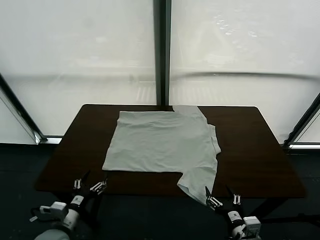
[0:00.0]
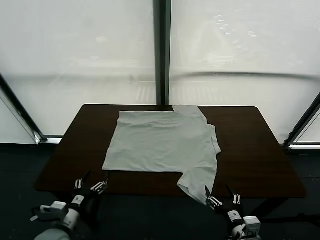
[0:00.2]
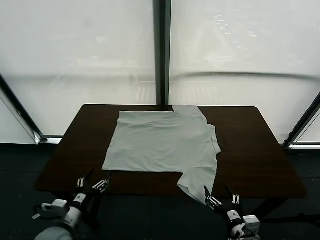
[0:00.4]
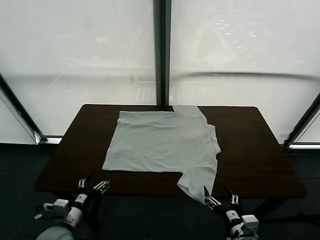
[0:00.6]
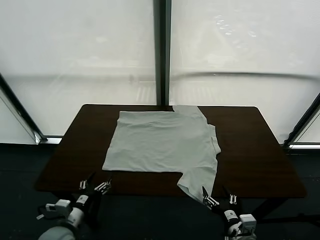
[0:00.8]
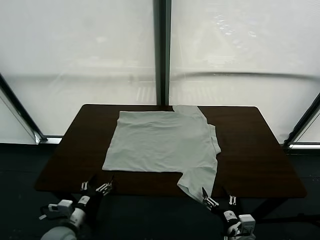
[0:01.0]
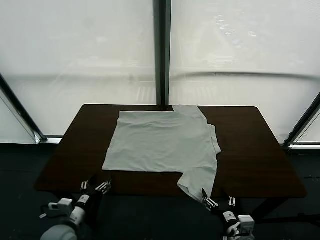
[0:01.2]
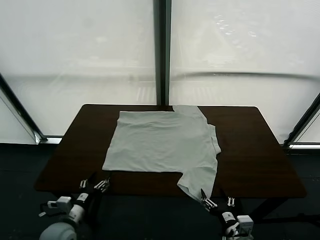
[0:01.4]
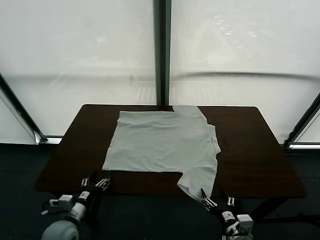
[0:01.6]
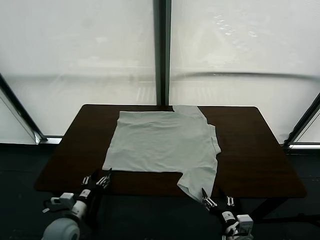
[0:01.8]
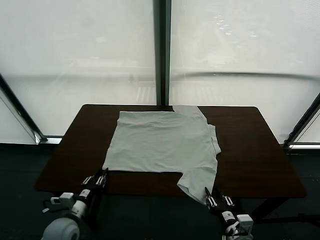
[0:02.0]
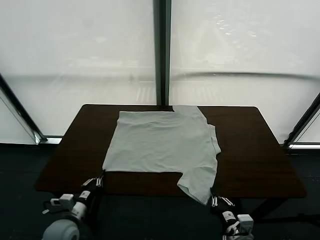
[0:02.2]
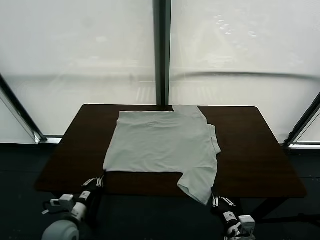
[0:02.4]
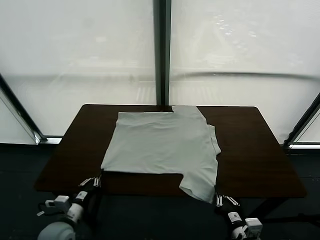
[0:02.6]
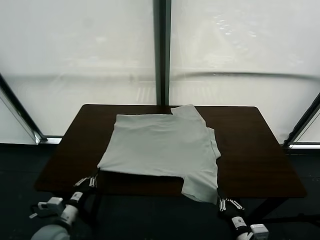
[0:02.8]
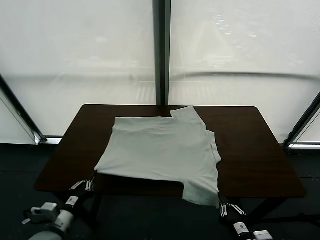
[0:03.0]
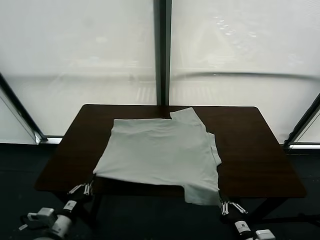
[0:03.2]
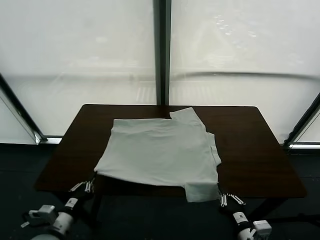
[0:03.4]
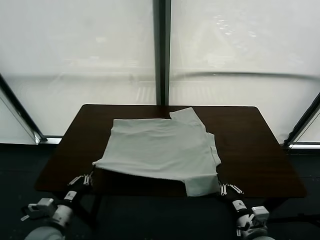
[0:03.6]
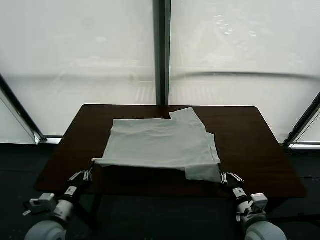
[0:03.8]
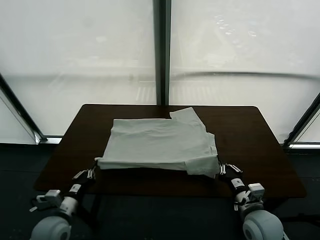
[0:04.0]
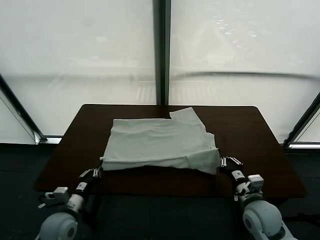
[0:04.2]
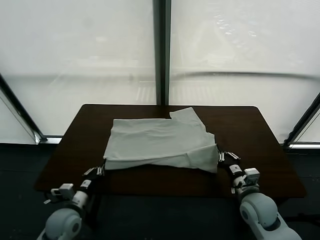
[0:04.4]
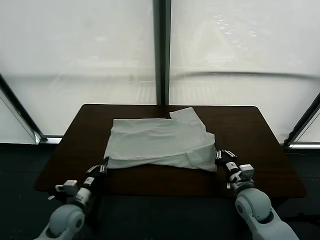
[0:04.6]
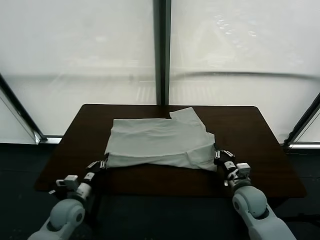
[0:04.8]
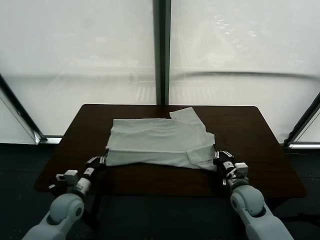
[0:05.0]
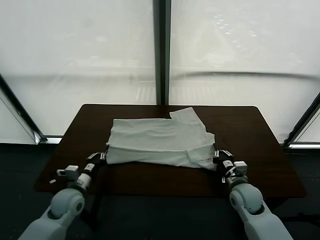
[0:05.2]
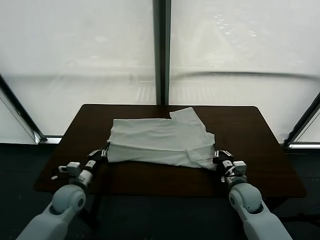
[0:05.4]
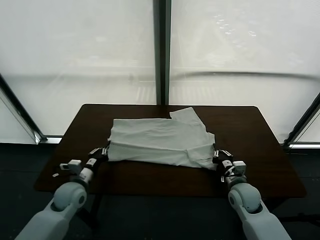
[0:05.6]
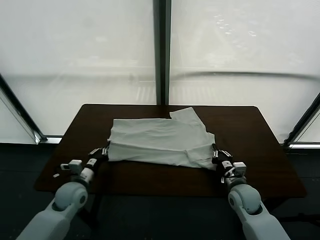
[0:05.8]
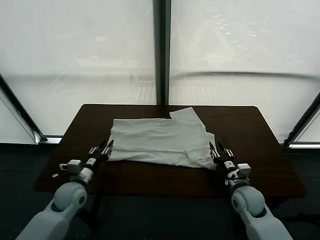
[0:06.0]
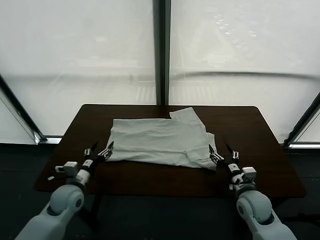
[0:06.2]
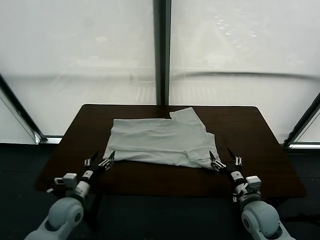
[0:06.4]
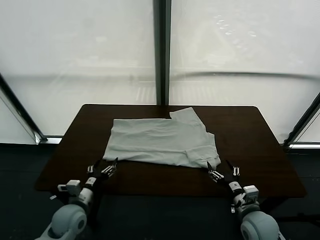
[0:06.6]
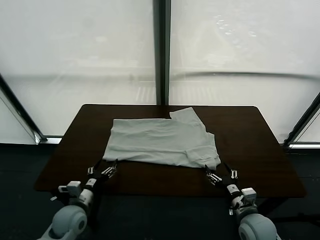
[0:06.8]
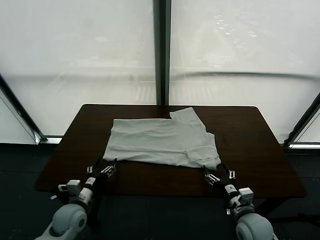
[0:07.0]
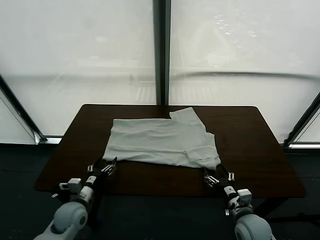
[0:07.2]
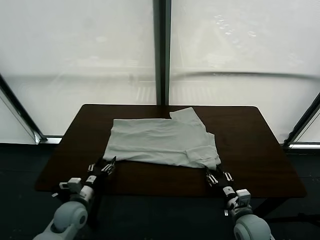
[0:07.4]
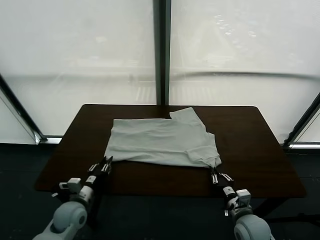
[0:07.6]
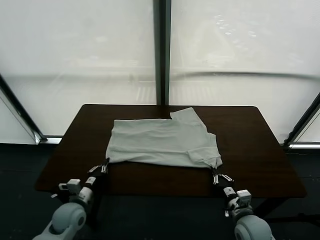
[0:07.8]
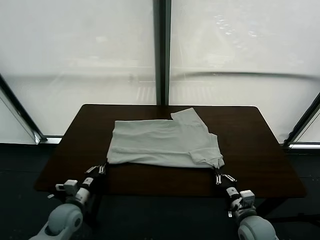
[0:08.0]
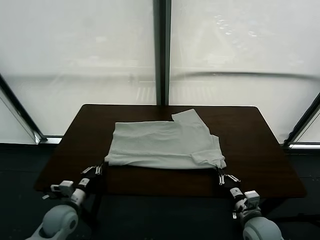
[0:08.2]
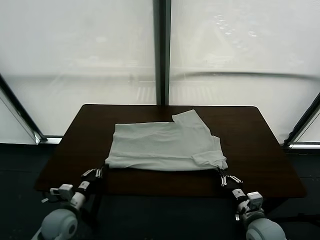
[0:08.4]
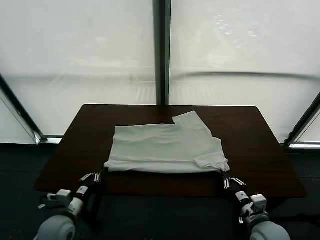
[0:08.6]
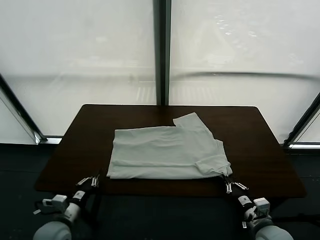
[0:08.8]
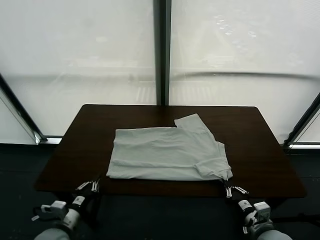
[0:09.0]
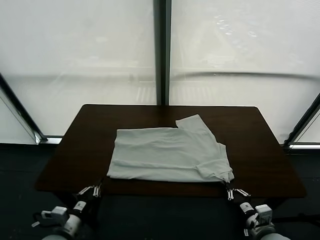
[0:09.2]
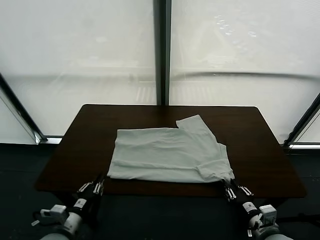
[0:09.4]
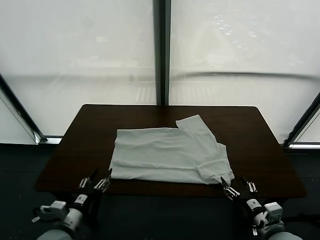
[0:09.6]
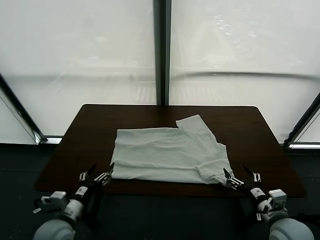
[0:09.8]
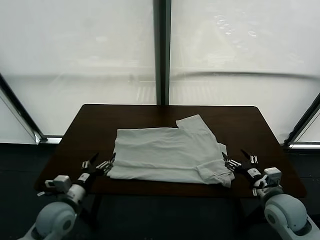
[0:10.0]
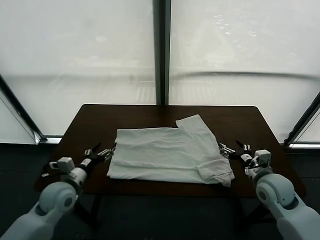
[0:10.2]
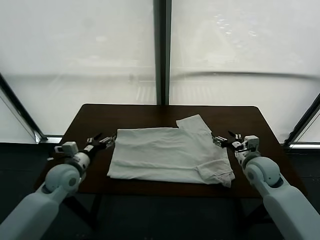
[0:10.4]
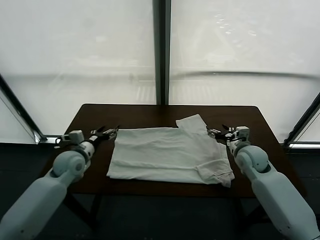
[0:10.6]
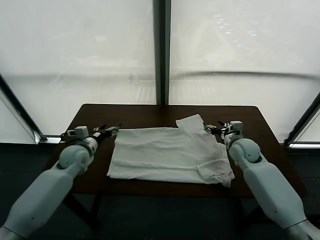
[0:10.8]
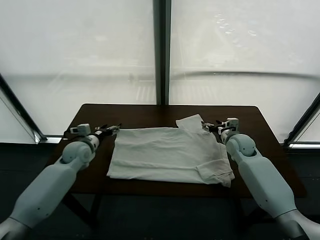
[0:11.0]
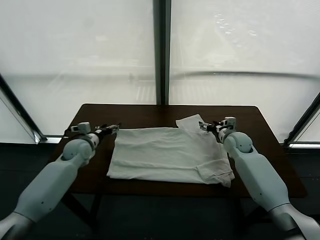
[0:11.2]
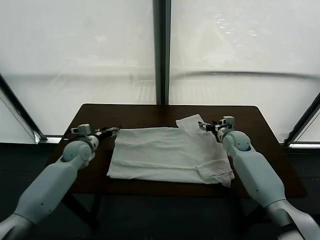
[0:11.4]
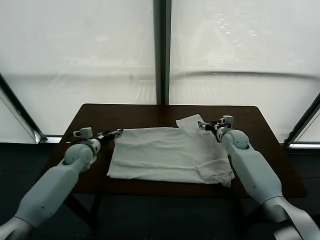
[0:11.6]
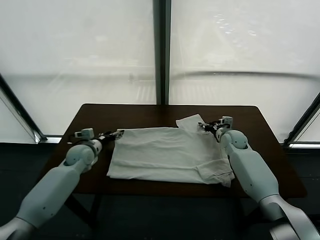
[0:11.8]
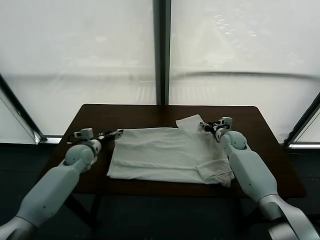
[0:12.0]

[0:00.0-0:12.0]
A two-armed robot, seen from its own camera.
Task of the whole recording: fold and organize the clothes.
Step, 0:00.0 to 0:02.6: use both grippers simultaneously to clamp the lower edge of the clothing fabric.
Step, 0:02.8 to 0:06.0: use both grippers to drag the lower edge of the fabric forward and fold it over the upper edge.
Step, 0:06.2 to 0:09.6: Drag the clothes downward with both gripper.
0:01.6 to 0:03.0: The left gripper shifts approximately 10 cm backward and upward, and closes its fingers. Meanwhile the right gripper changes place by approximately 5 cm.
0:03.0 to 0:04.4: The right gripper shifts some 20 cm forward; the left gripper shifts some 10 cm forward.
0:04.4 to 0:06.0: The right gripper is displaced backward by approximately 5 cm, and opens up, while the left gripper goes forward and returns, approximately 10 cm each way, and opens up.
0:06.0 to 0:07.6: The right gripper closes up. The left gripper closes up.
0:07.6 to 0:09.0: The left gripper goes some 10 cm backward, while the right gripper moves backward, approximately 5 cm.
0:09.0 to 0:10.4: The two grippers go approximately 30 cm forward. The left gripper opens its fingers. The right gripper opens.
0:10.4 to 0:12.0: The left gripper changes place by some 5 cm, while the right gripper moves forward, approximately 5 cm, and closes up.

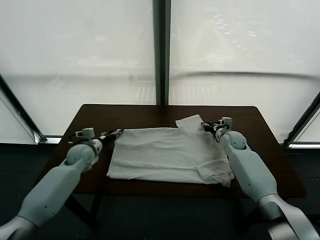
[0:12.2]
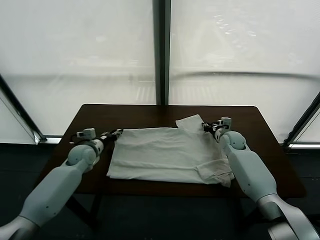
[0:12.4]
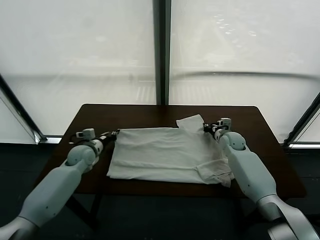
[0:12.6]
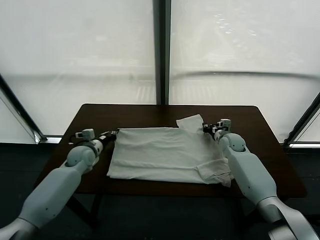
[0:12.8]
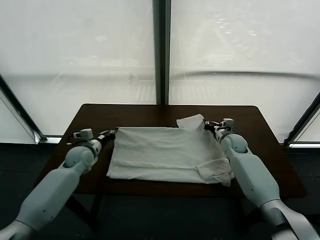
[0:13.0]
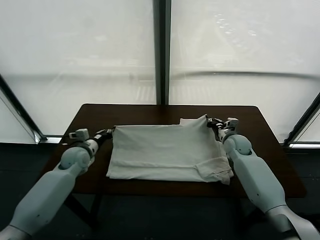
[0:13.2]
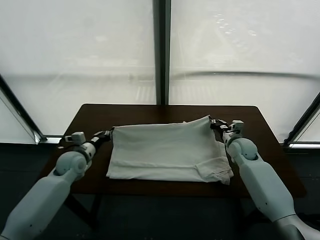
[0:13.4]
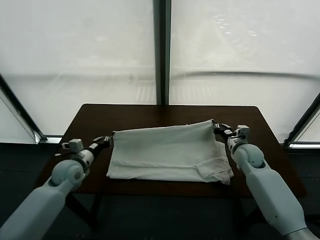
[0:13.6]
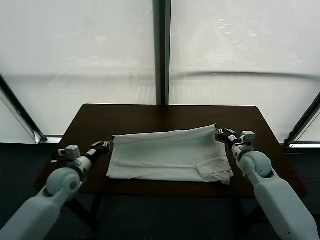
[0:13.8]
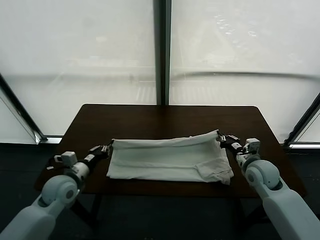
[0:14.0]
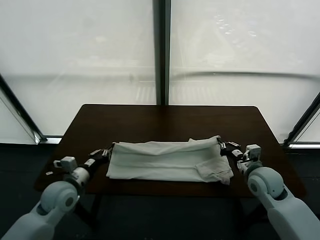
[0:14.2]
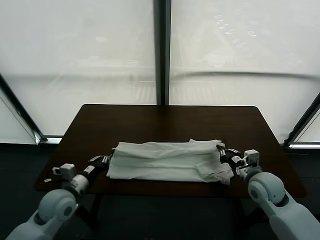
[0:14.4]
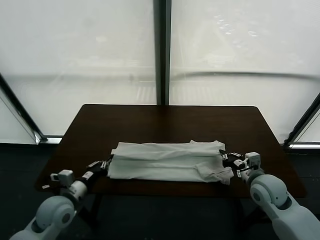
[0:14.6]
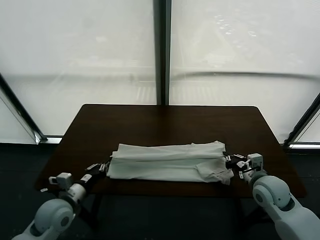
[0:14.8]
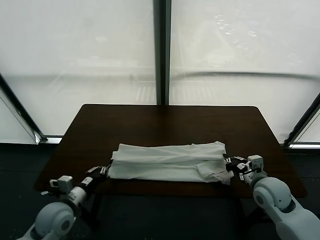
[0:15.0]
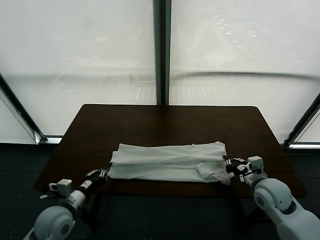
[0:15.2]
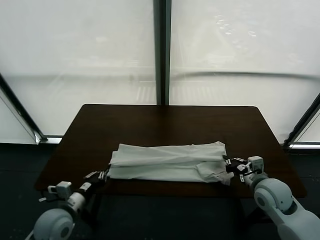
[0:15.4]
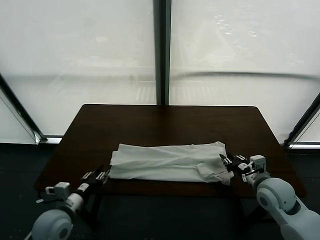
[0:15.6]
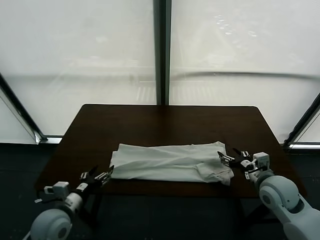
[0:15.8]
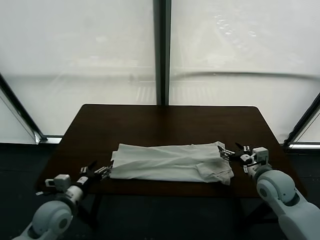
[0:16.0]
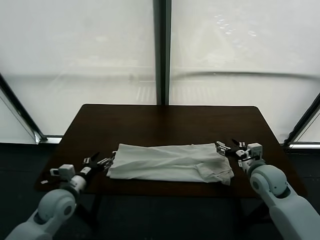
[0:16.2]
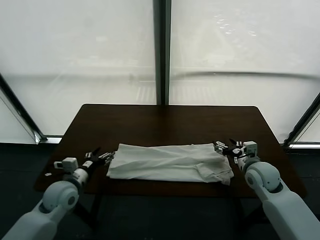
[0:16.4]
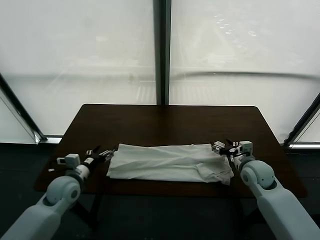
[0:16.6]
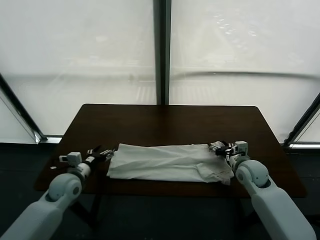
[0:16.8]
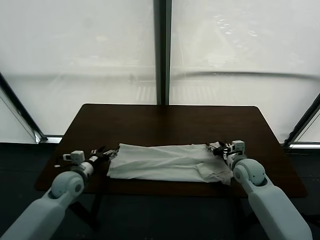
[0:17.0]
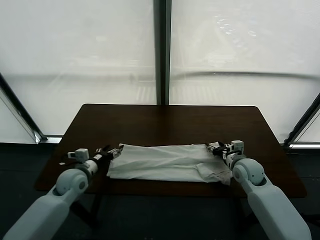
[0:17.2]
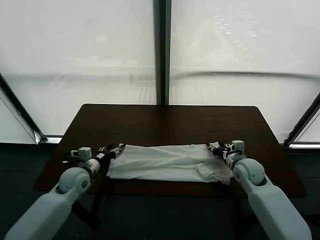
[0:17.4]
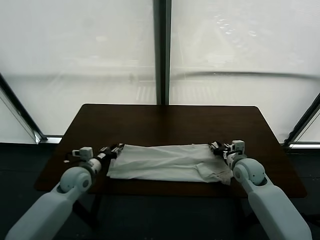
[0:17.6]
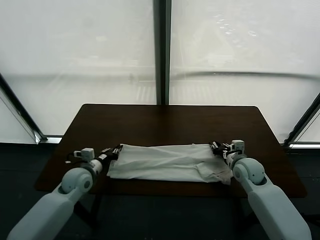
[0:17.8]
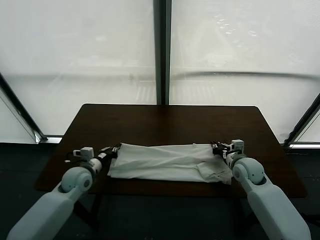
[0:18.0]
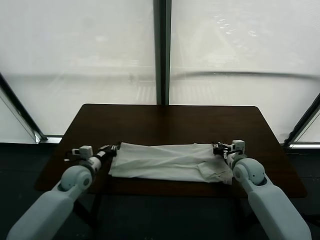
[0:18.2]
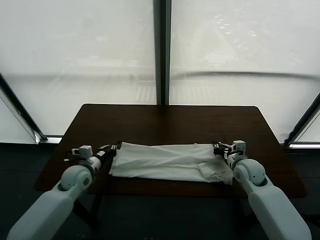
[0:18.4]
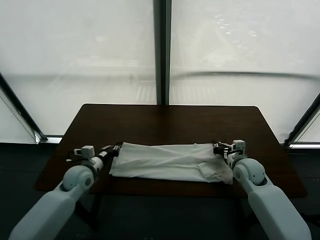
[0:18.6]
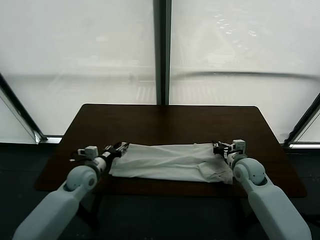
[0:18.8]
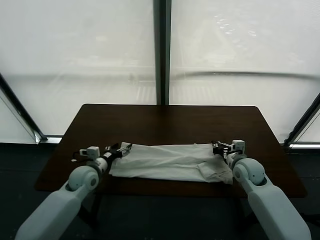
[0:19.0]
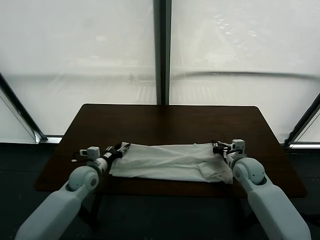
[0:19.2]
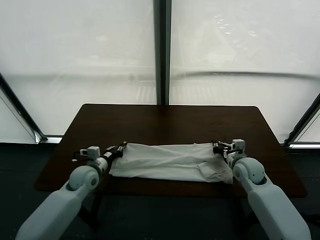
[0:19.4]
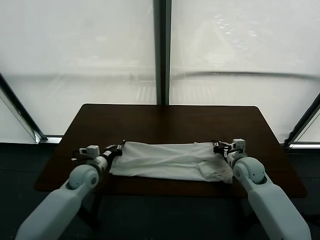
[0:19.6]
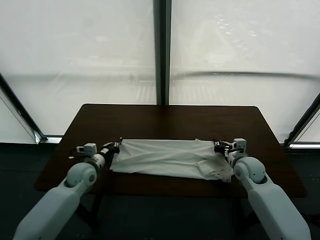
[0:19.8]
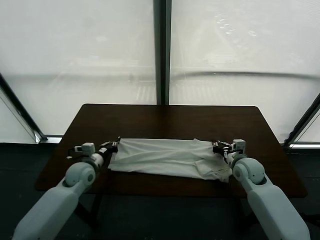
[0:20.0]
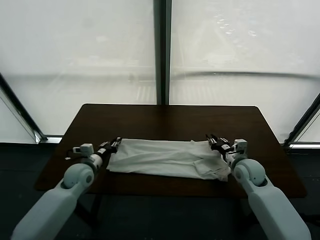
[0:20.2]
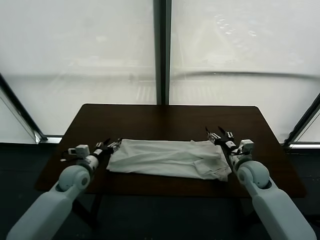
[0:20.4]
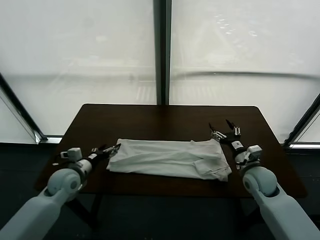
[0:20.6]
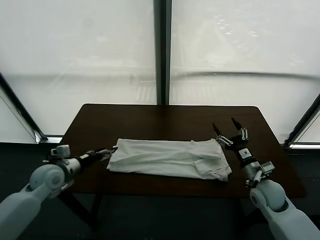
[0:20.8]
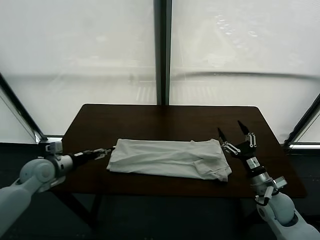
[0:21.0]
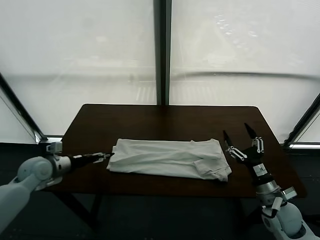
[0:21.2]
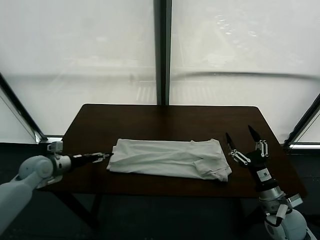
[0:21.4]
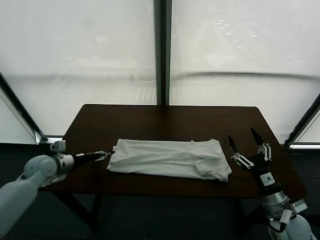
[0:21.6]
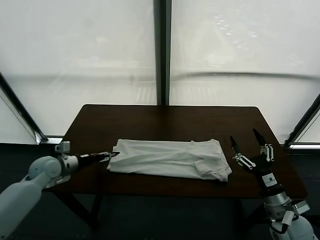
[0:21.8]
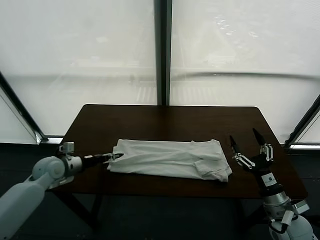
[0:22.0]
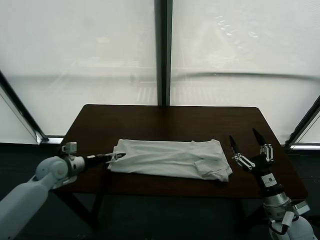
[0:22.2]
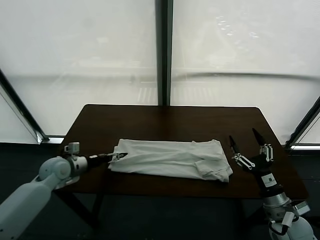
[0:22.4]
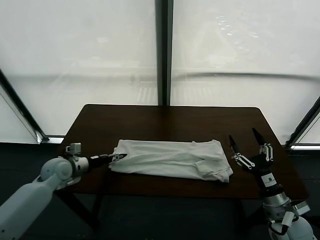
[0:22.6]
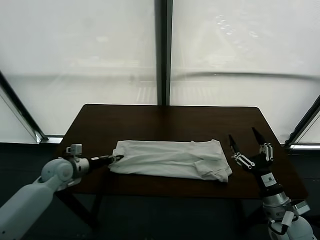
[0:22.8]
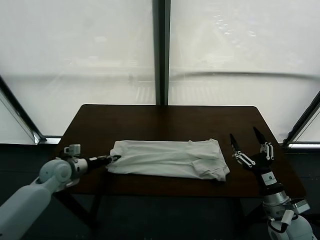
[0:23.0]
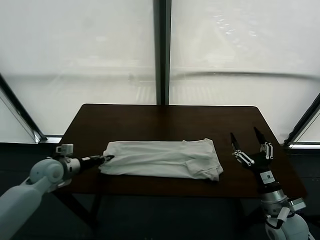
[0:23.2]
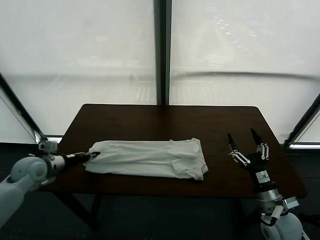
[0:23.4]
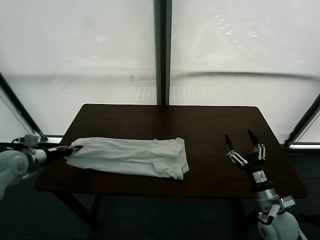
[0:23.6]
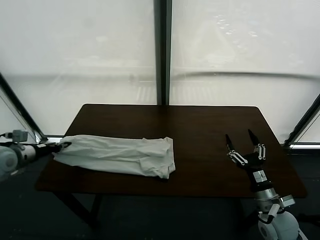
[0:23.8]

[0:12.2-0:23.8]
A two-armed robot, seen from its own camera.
Task of the whole recording: fold and organize the clothes.
Step, 0:12.8 to 0:16.0: use both grippers to drag the upper edge of the fabric backward and fold it over the lower edge.
Step, 0:16.4 to 0:23.0: use the left gripper to clamp the left edge of the fabric.
0:12.2 to 0:13.6: The grippers both shift backward by approximately 15 cm. The left gripper closes its fingers.
0:13.6 to 0:15.0: The left gripper travels backward by roughly 10 cm, while the right gripper shifts roughly 5 cm backward.
0:15.0 to 0:16.6: Both grippers move forward, about 10 cm. The right gripper opens, while the left gripper opens up.
0:16.6 to 0:18.0: The left gripper closes its fingers. The right gripper closes its fingers.
0:18.0 to 0:19.4: The left gripper opens and closes again.
0:19.4 to 0:21.0: The right gripper is displaced backward by about 15 cm, and opens; the left gripper is displaced to the left and upward by approximately 15 cm, and opens up.
0:21.0 to 0:22.4: The left gripper shifts by approximately 5 cm.
0:22.4 to 0:23.8: The left gripper goes some 20 cm to the left and upward, and closes up.
